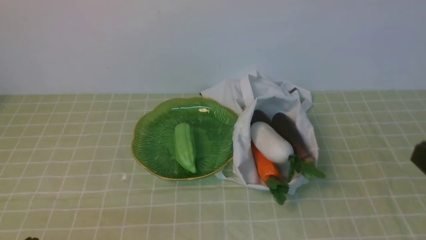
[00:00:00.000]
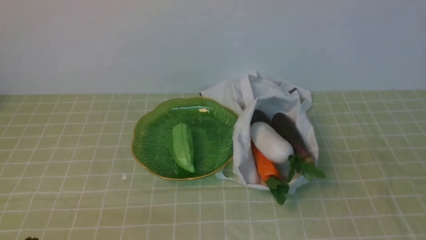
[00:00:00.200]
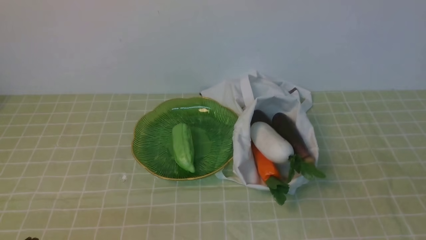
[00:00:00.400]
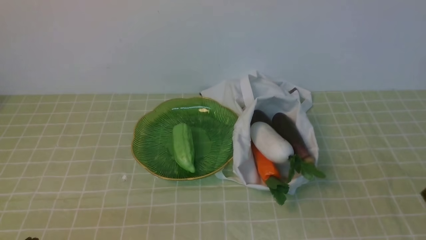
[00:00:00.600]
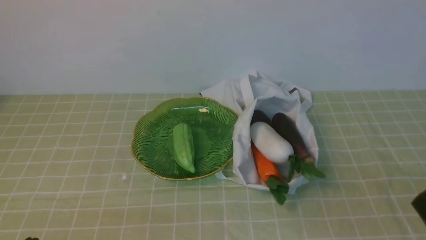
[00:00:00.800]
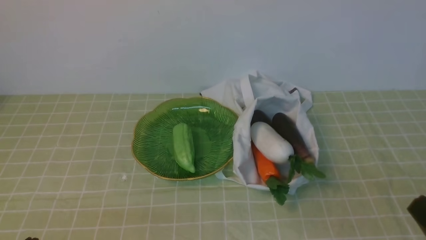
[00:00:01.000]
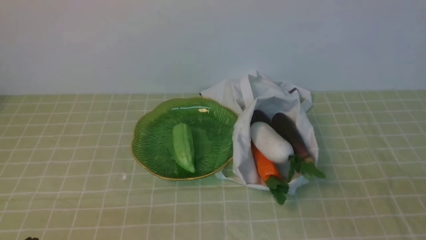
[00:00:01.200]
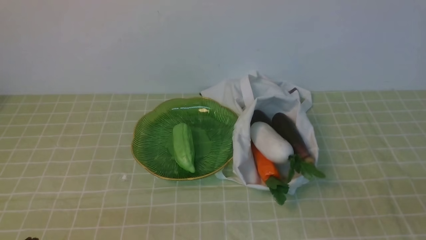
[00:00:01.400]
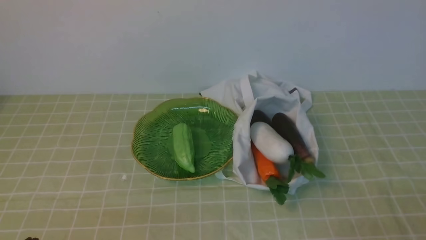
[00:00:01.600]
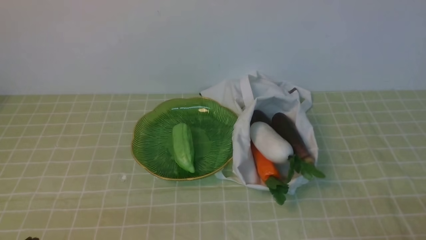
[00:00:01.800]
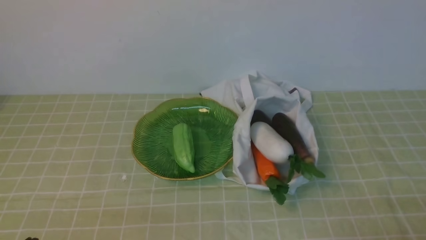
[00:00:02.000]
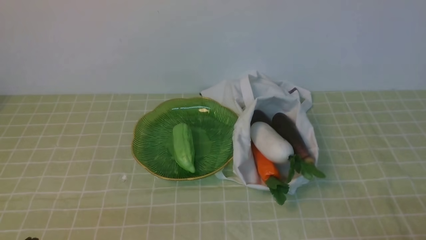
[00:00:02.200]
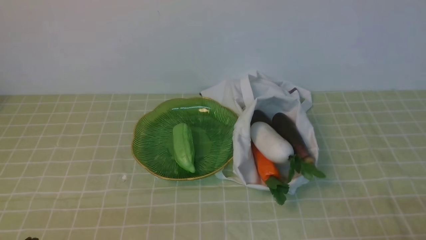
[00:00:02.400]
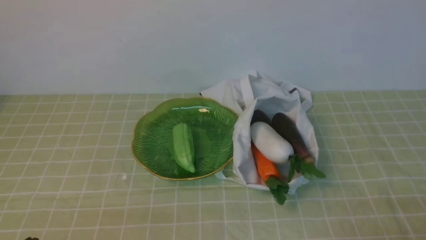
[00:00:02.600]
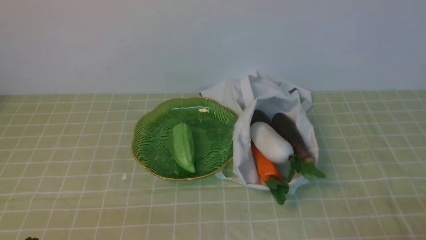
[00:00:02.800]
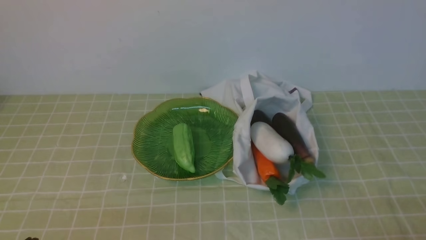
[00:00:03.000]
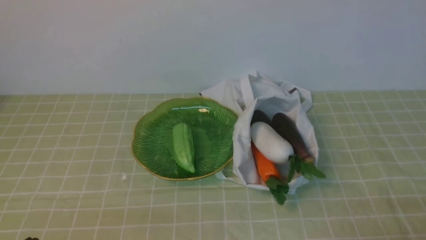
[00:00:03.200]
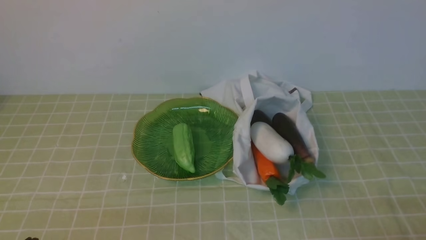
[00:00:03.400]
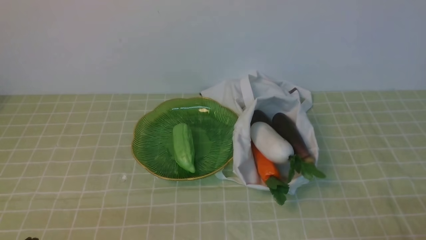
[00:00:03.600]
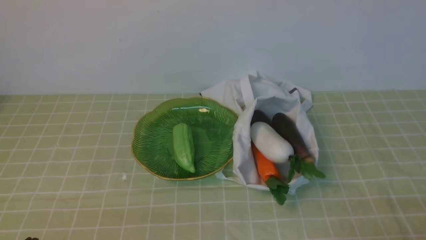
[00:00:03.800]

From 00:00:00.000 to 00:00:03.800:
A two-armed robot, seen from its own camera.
Task of the whole recording: take vegetables from bag on green coffee tablecloth place on plate.
From 00:00:02.600 to 00:00:03.800: Both grippers stay put.
